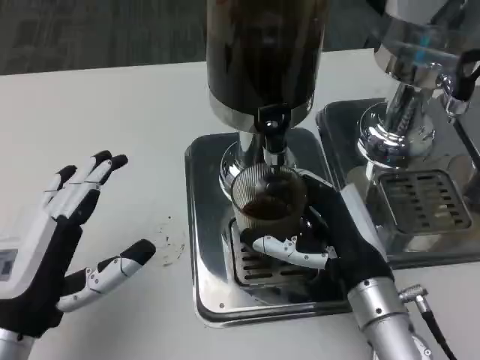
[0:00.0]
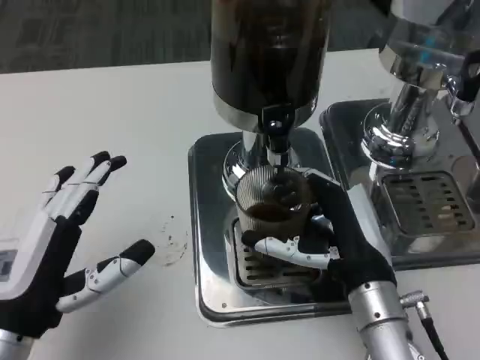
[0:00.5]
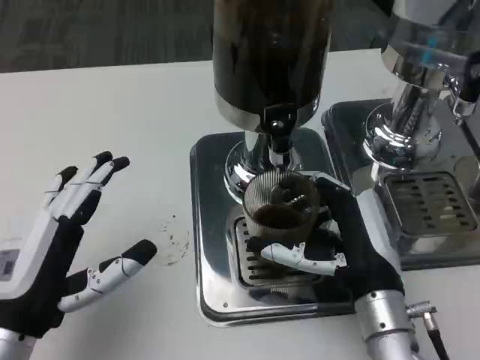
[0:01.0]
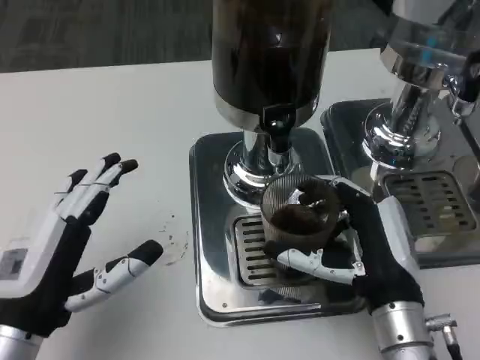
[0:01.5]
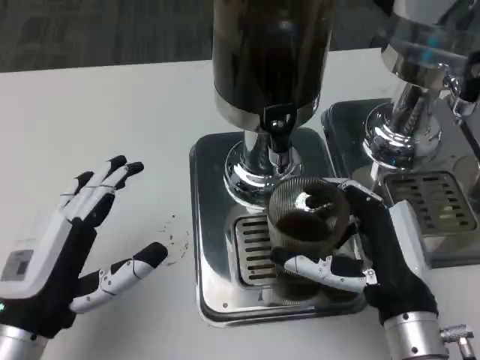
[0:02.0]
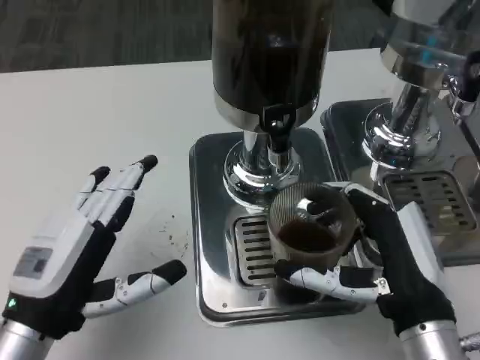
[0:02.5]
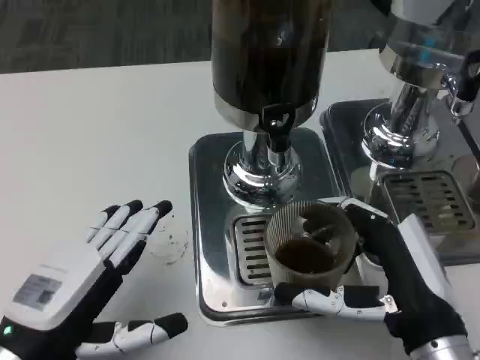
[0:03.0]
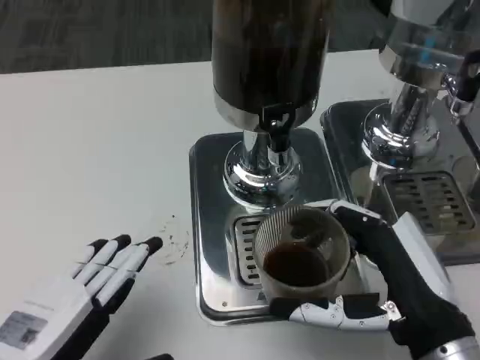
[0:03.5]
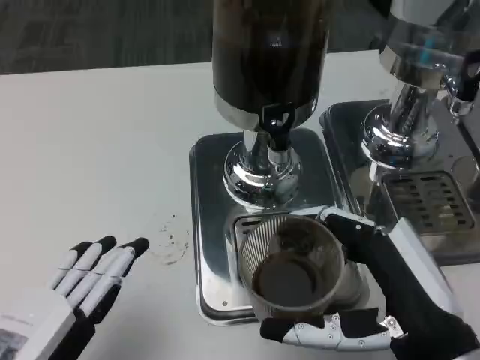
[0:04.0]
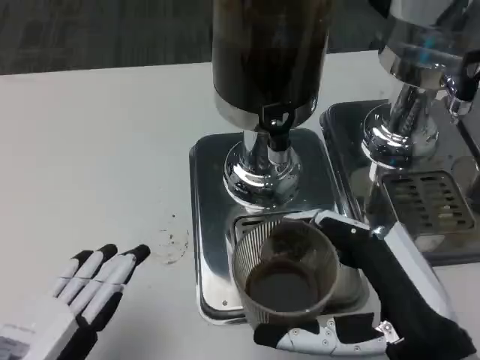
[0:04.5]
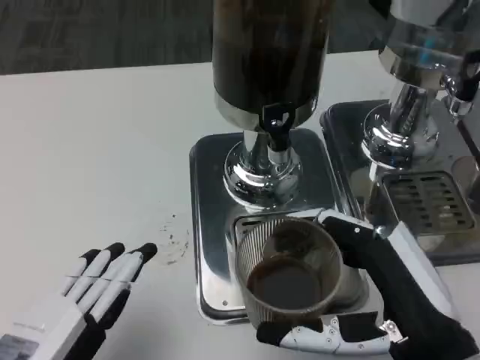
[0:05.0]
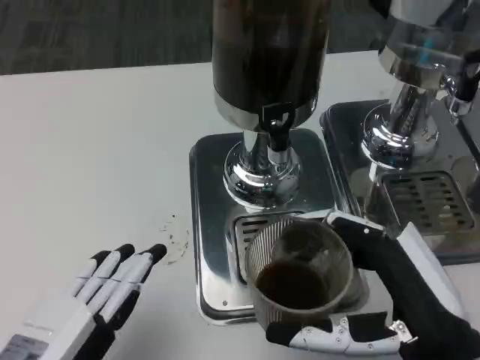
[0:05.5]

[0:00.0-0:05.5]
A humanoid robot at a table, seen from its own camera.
Task of the whole recording: Grasp the cup under the faucet to collect the drink, then remove the cup.
0:02.0 to 0:03.5: The left hand heads backward, covering some 5 cm. Meanwhile the right hand changes place by approximately 5 cm.
0:03.5 to 0:05.5: The hands move only a little.

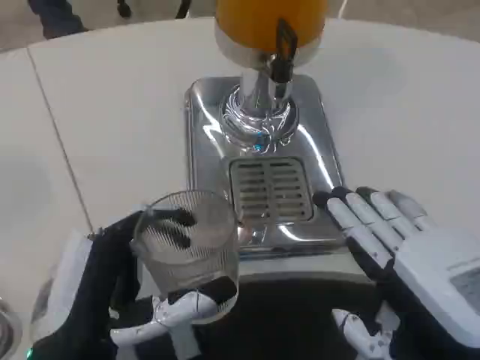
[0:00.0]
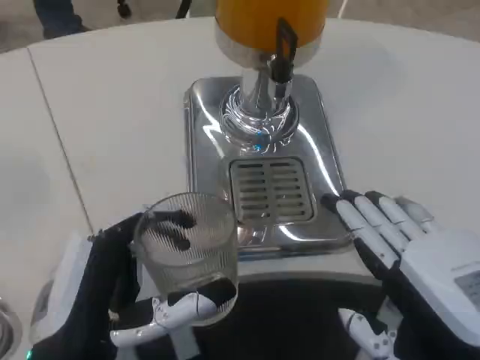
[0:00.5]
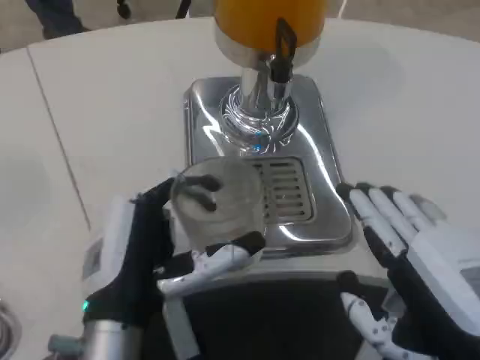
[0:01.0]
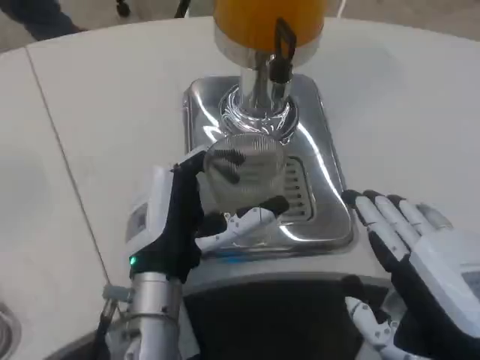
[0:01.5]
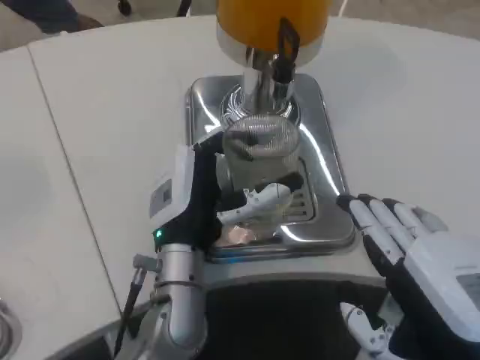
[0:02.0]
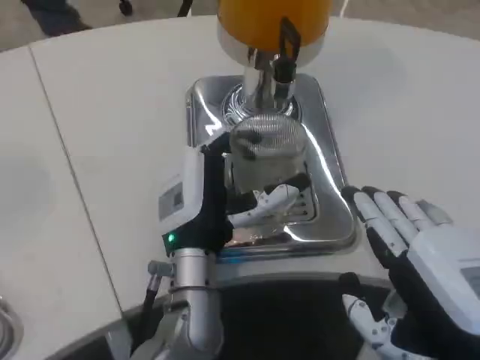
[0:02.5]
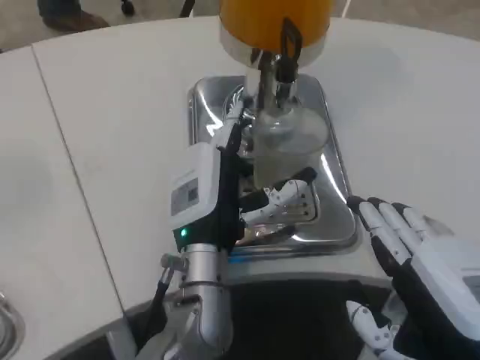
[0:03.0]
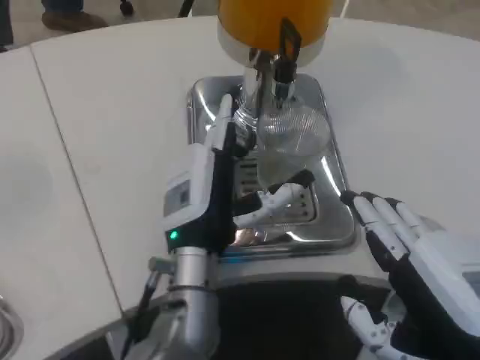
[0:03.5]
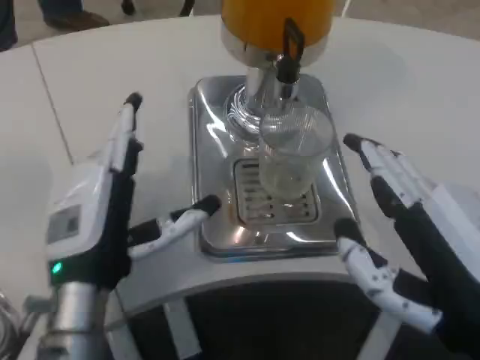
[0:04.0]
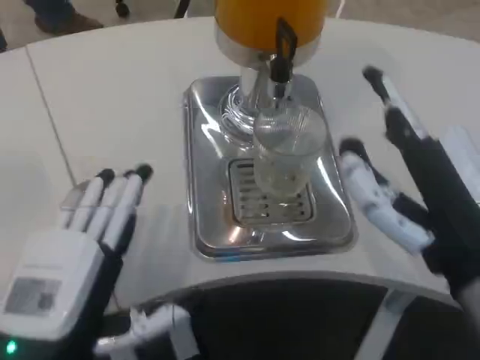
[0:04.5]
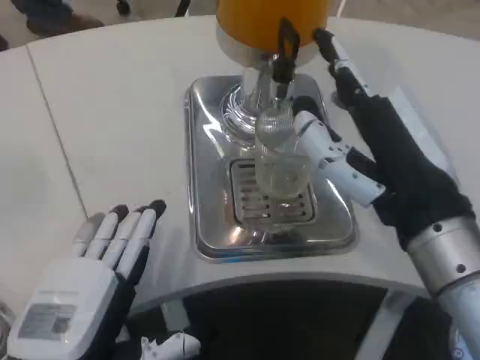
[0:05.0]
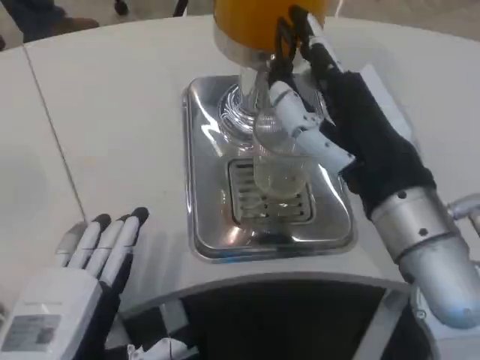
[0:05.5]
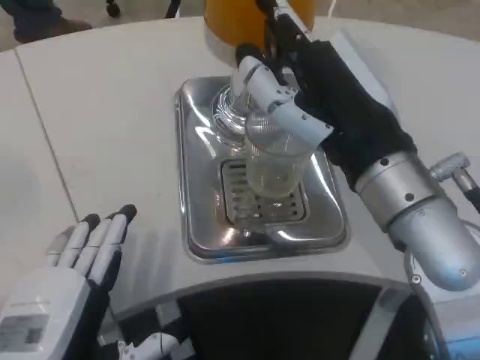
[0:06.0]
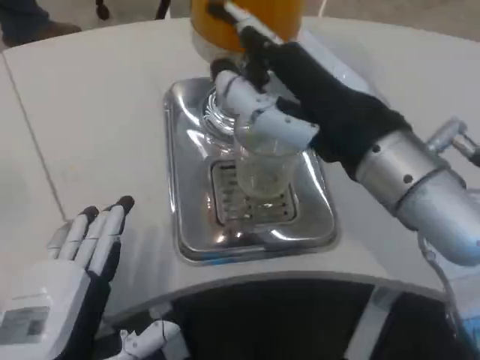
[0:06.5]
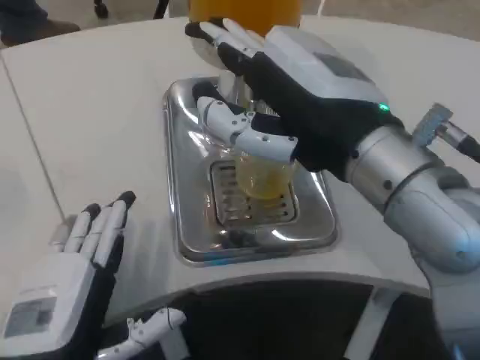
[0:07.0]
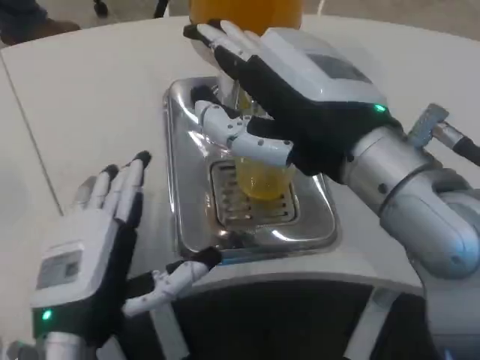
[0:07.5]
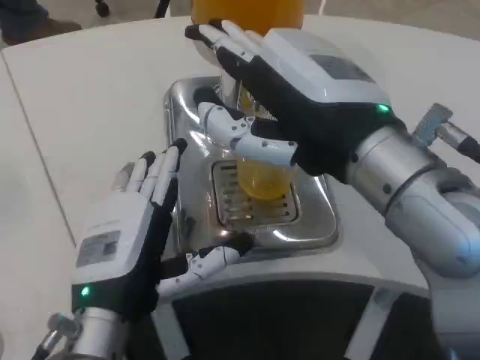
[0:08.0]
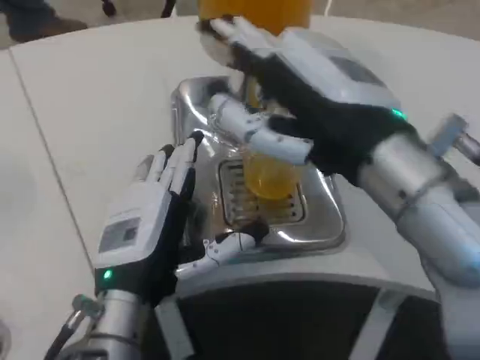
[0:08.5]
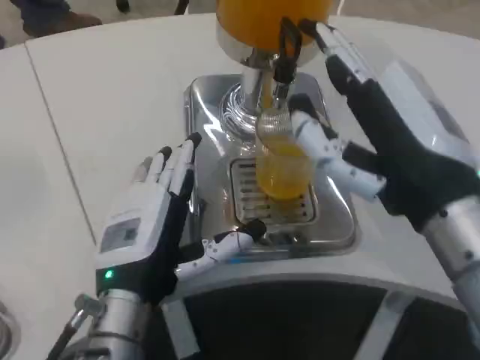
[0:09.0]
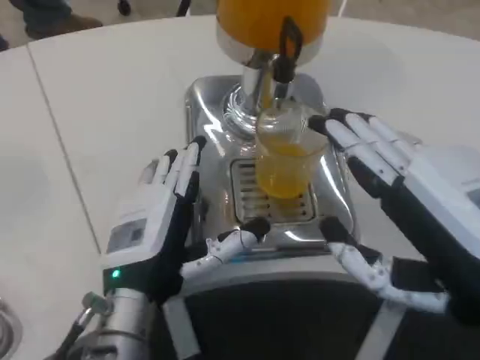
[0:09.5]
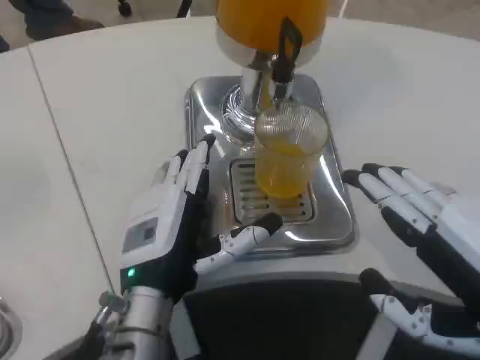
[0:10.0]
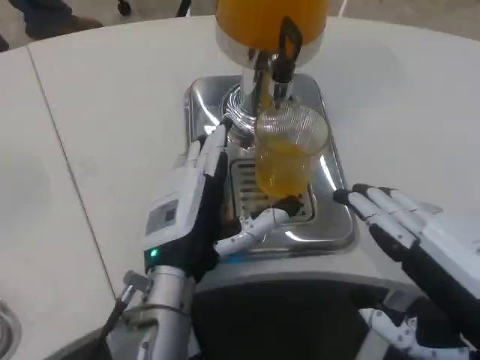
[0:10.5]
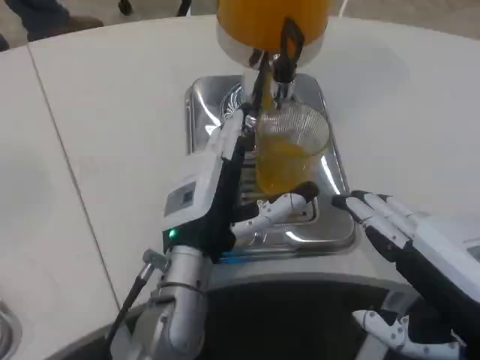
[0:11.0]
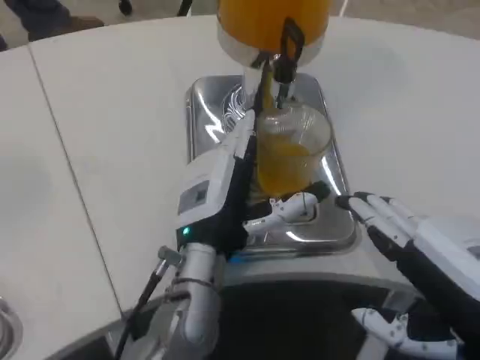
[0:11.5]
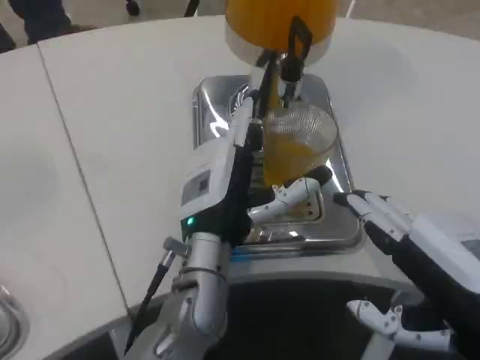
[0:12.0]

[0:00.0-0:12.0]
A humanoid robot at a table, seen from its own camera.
Task of the whole recording: Grasp the cup under the faucet to collect the drink, then remove the cup.
0:00.0 to 0:02.0: The left hand shifts some 15 cm forward and to the right.
0:02.0 to 0:04.0: The left hand goes approximately 10 cm to the left and backward.
0:04.0 to 0:06.0: The right hand travels forward, to the left and upward by approximately 15 cm, while the left hand moves backward, roughly 10 cm.
0:06.0 to 0:08.0: The left hand is displaced forward and to the right by some 10 cm.
0:08.0 to 0:10.0: The right hand shifts some 15 cm to the right, backward and downward; the left hand changes place by roughly 5 cm.
0:10.0 to 0:12.0: The left hand heads to the right and forward, covering some 10 cm.

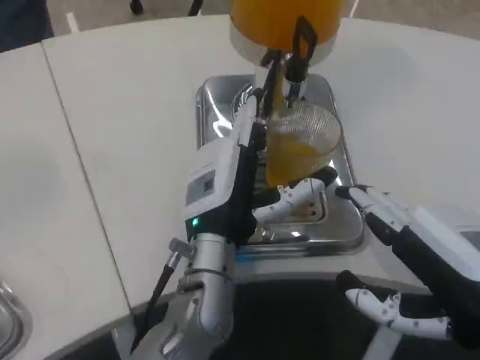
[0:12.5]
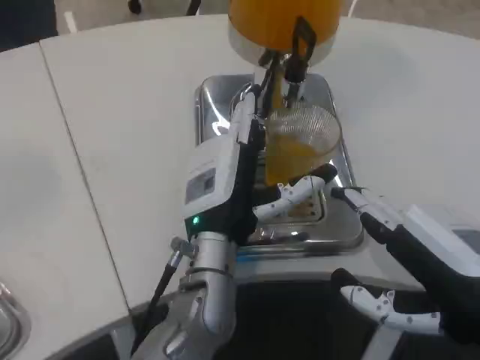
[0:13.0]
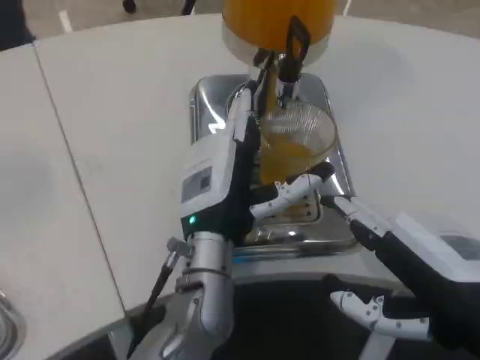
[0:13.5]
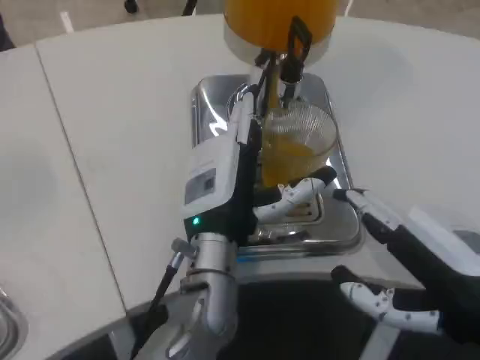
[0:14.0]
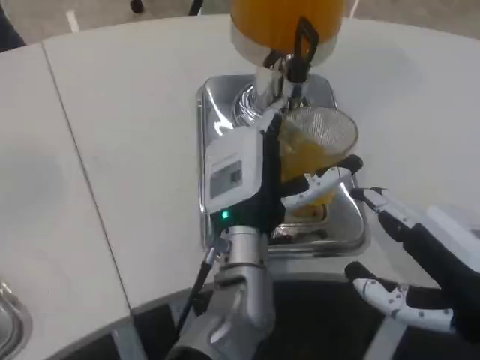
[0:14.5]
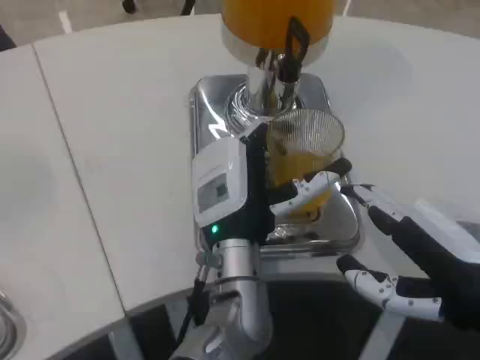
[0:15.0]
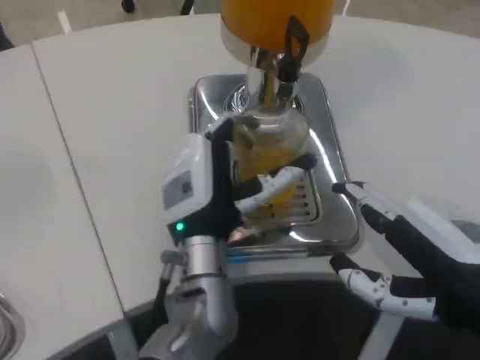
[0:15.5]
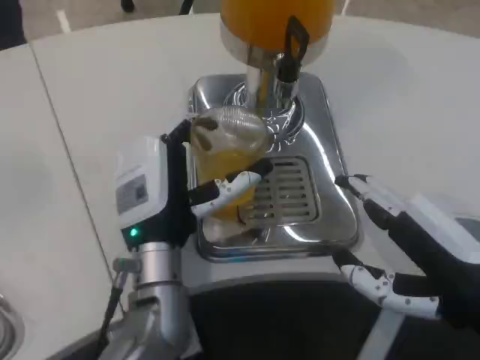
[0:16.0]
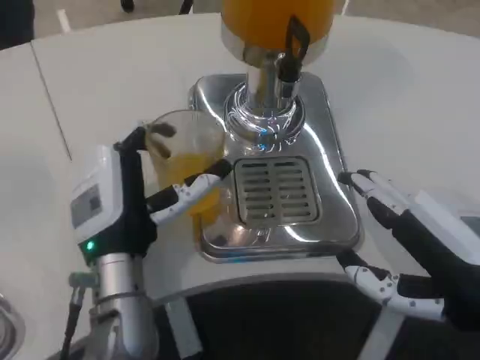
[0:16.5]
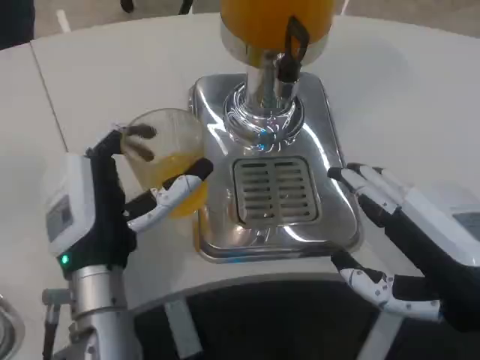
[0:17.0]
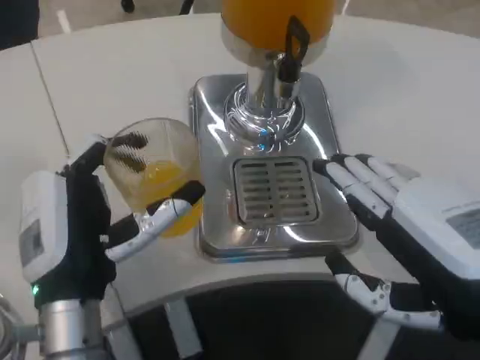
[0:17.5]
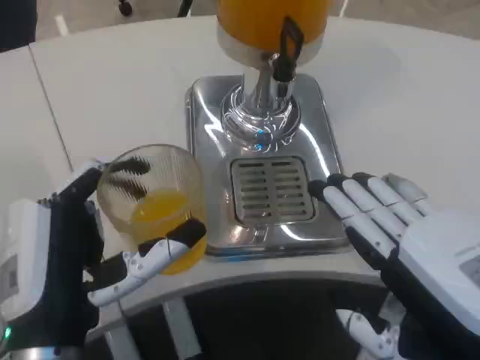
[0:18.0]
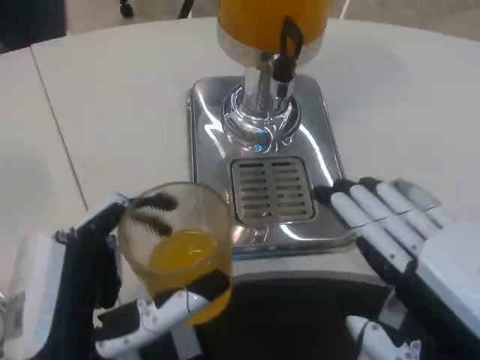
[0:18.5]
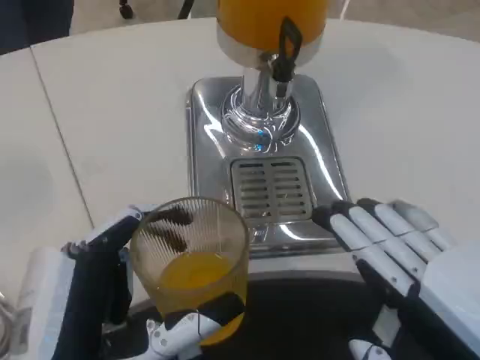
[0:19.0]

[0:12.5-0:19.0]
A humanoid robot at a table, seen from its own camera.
Task of the whole recording: Grasp the cup under the faucet to collect the drink, then remove the cup.
0:12.5 to 0:14.5: The hands make only small movements.
0:14.5 to 0:17.0: The left hand heads to the left, covering about 15 cm.
0:17.0 to 0:19.0: The right hand travels backward by about 5 cm; the left hand moves backward, approximately 15 cm.

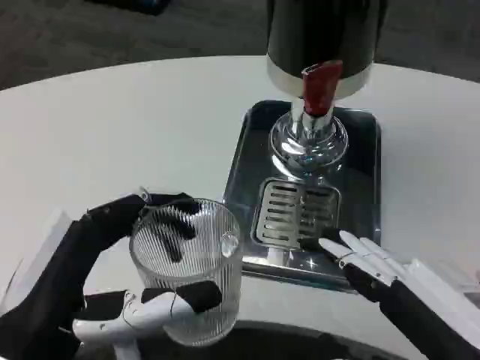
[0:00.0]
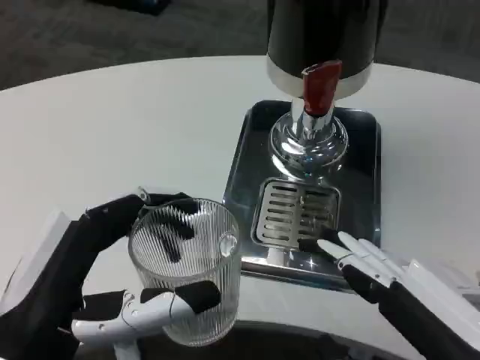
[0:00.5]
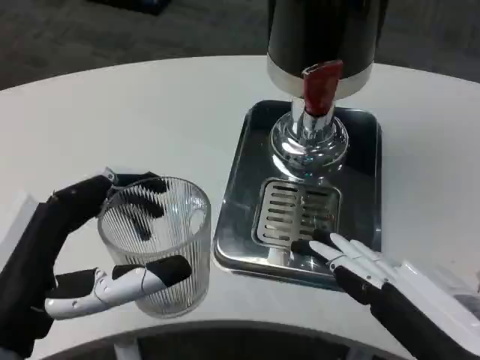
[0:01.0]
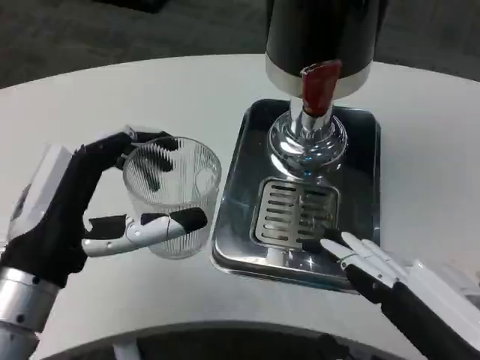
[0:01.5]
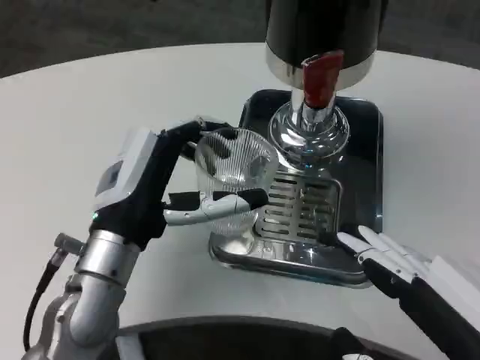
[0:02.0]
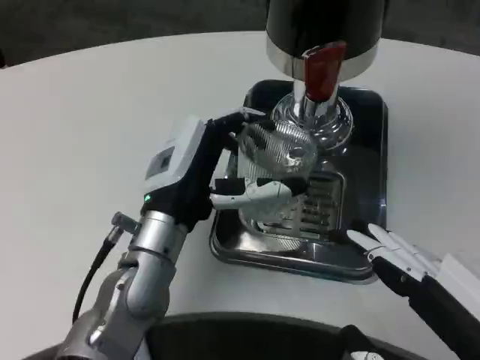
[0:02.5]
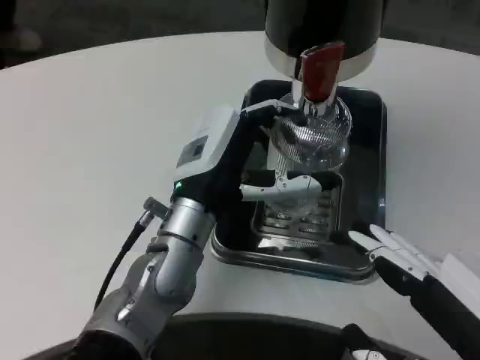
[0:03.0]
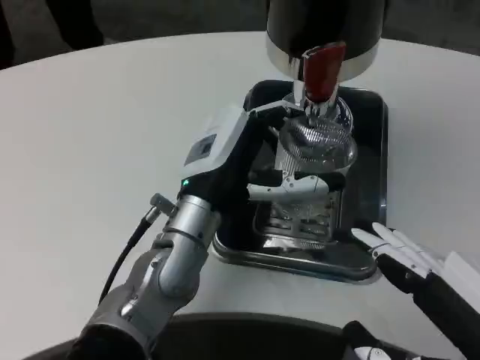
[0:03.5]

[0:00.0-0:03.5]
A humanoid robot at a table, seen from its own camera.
Task of the whole recording: Grasp the cup under the faucet to collect the drink, then remove the cup.
0:00.0 to 0:02.0: The left hand shifts about 15 cm forward.
0:02.0 to 0:03.5: The left hand is displaced to the right by approximately 5 cm.
